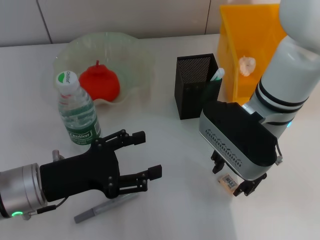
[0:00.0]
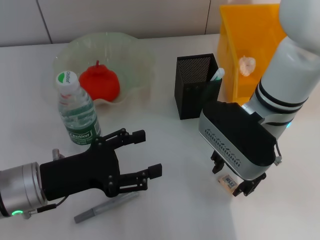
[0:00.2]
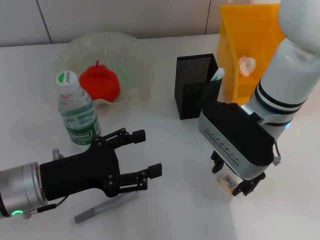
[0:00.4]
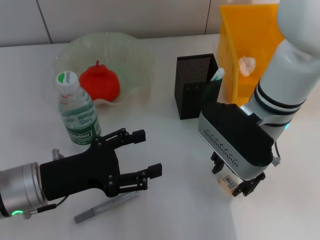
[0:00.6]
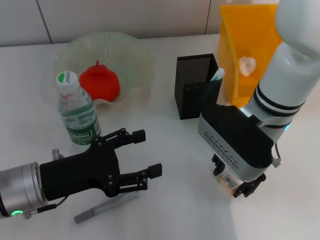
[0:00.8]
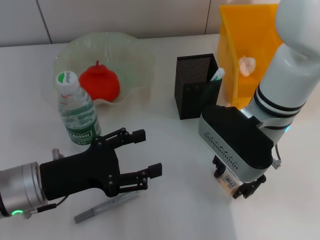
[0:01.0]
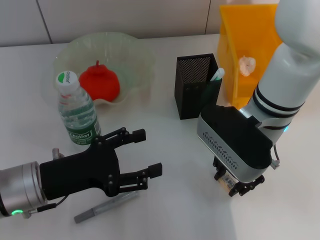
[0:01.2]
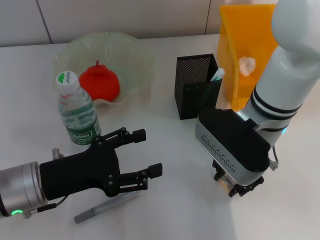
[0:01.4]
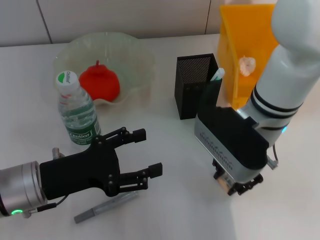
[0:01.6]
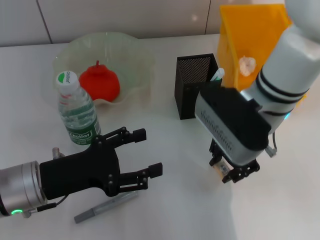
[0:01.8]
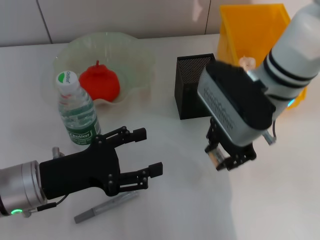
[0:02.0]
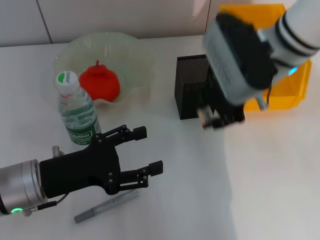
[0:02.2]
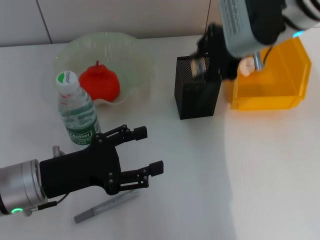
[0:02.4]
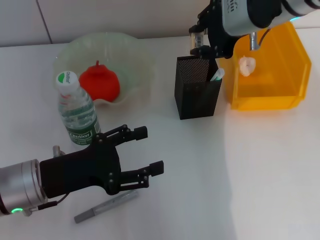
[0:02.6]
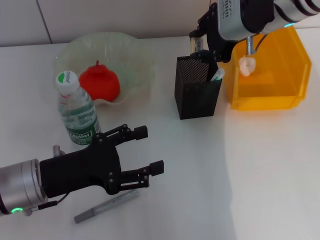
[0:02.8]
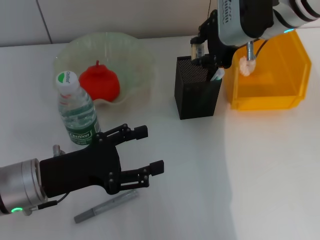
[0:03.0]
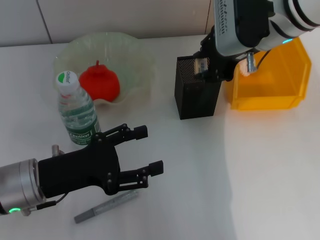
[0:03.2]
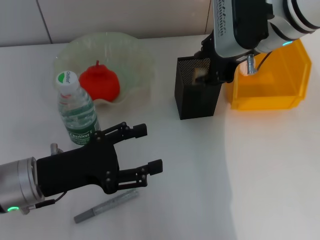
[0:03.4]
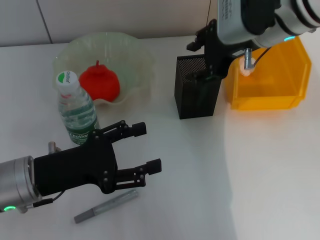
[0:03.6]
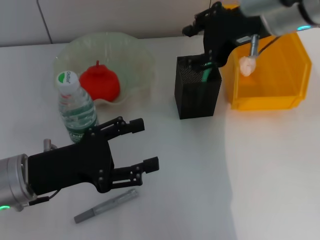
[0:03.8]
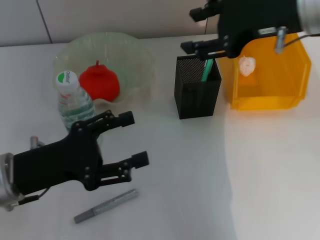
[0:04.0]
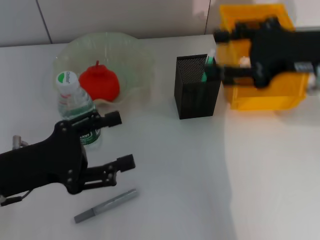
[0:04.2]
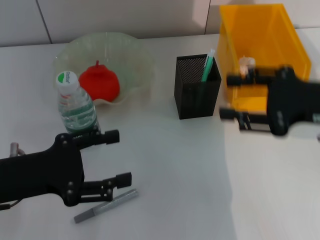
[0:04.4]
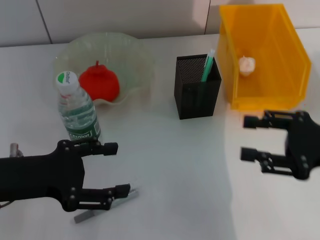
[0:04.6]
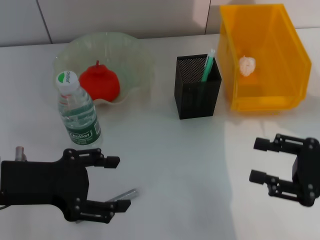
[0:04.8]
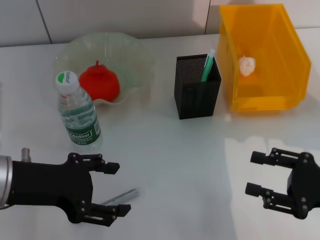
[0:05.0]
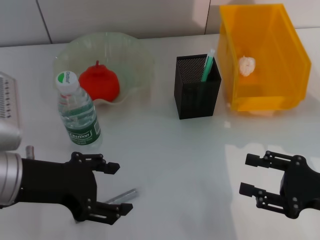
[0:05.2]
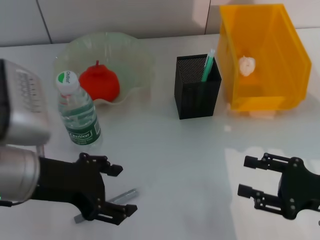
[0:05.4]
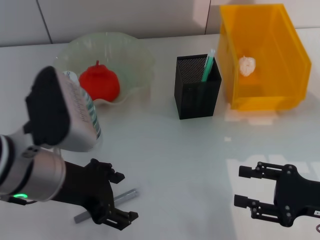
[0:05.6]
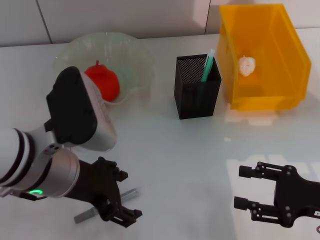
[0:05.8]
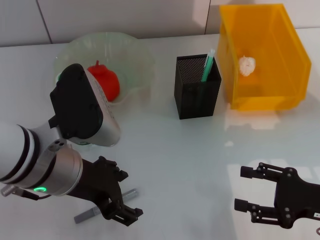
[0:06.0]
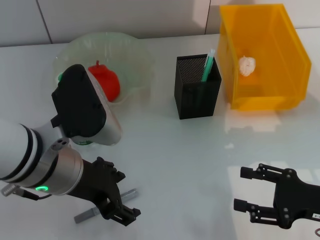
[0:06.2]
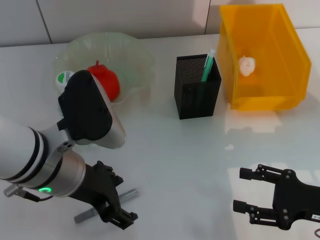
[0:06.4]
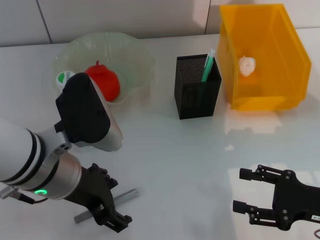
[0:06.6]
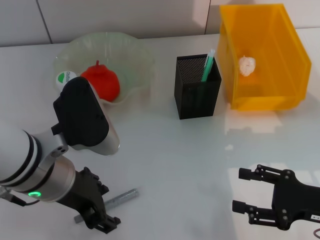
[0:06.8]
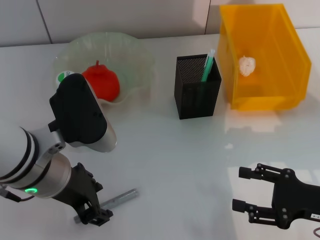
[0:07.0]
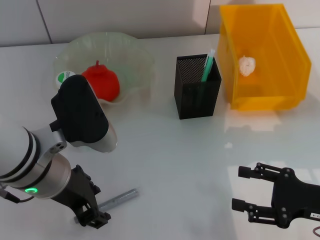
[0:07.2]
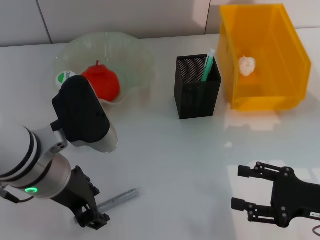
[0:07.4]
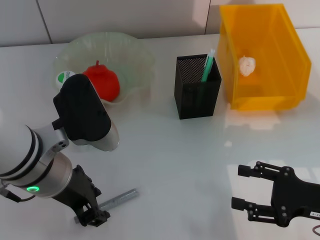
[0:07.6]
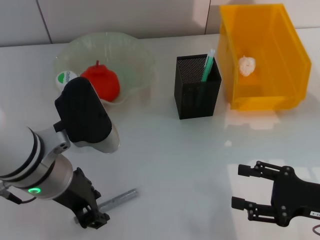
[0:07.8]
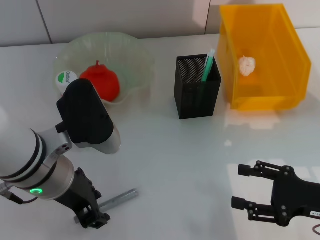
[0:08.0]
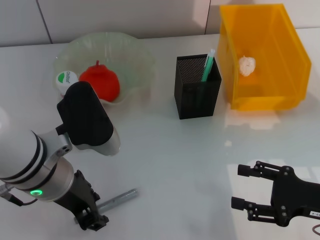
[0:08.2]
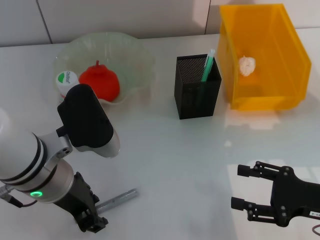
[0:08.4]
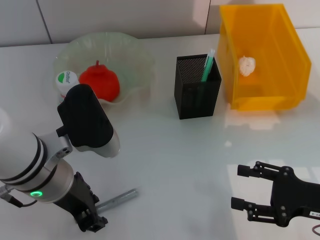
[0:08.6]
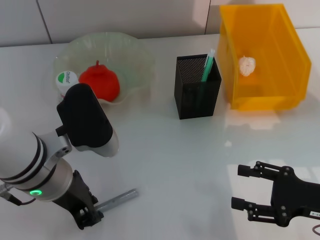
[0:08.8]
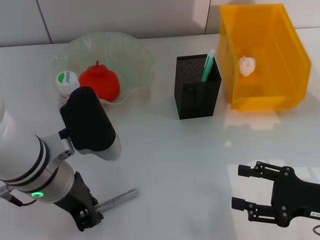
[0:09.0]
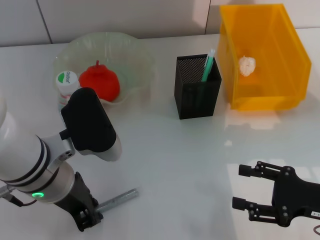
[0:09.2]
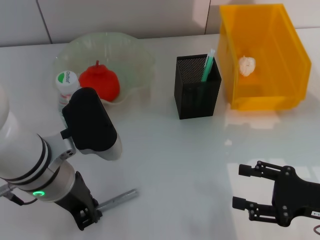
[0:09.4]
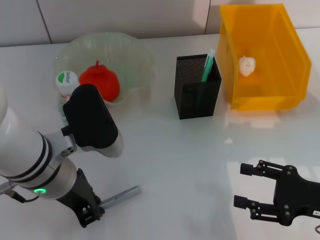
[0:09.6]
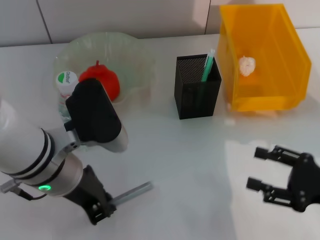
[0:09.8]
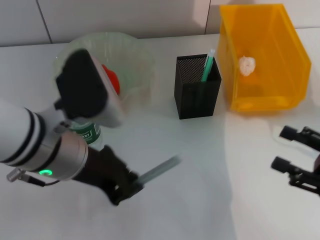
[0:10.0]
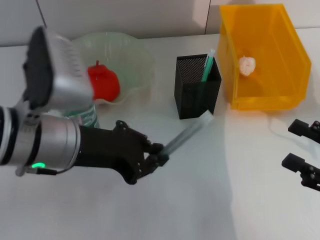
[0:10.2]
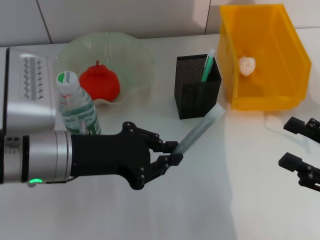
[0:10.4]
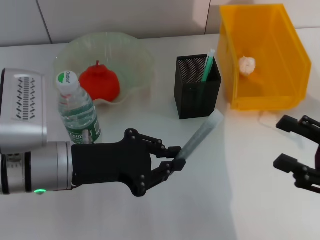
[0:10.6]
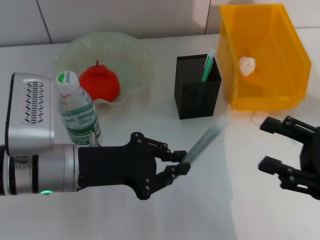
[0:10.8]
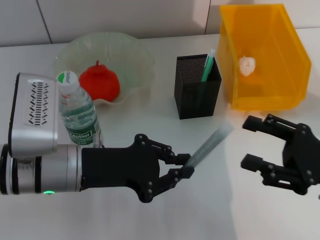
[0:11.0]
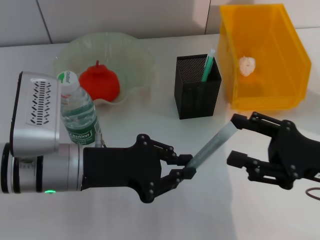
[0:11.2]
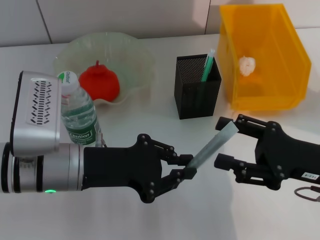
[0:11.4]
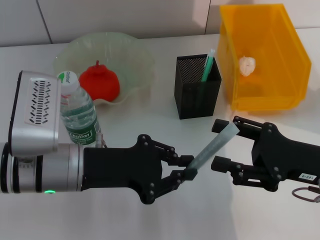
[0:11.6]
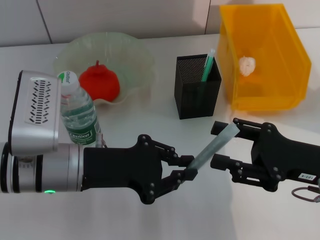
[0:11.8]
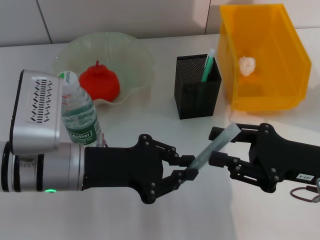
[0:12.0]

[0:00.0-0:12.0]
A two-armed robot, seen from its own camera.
Step, 0:01.4 to 0:03.4: Put the eraser into the pen holder with the right hand.
Step, 0:03.6 to 0:09.4: Grab the gray glue with the left hand.
0:00.0 to 0:01.6: Neither gripper changes place.
0:01.6 to 0:03.0: The right gripper heads upward and forward, covering some 10 cm.
0:03.0 to 0:04.4: The left gripper shifts by roughly 5 cm; the right gripper travels backward, to the right and downward by roughly 20 cm.
0:04.4 to 0:06.0: The right gripper goes some 15 cm downward and backward; the left gripper is displaced to the right by some 10 cm.
0:06.0 to 0:07.6: The left gripper closes.
0:07.6 to 0:09.0: The left gripper closes.
0:09.0 to 0:10.4: The right gripper moves some 5 cm.
0:10.4 to 0:12.0: The right gripper goes some 10 cm to the left and forward.

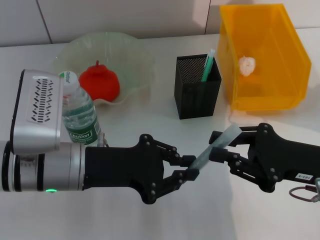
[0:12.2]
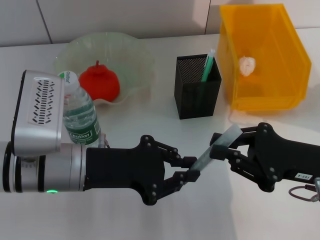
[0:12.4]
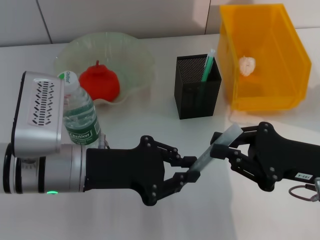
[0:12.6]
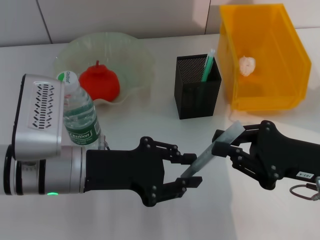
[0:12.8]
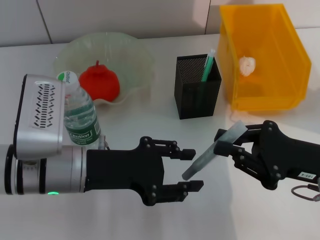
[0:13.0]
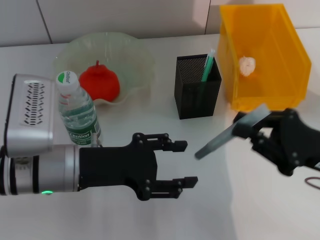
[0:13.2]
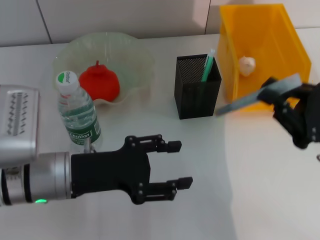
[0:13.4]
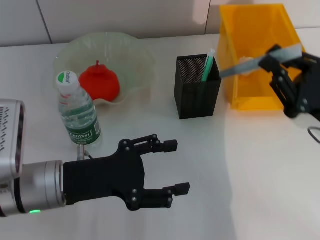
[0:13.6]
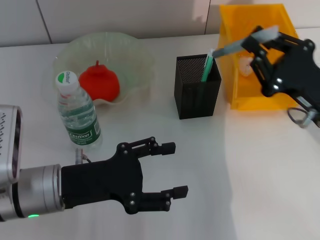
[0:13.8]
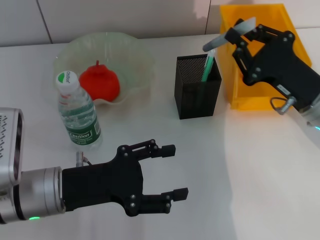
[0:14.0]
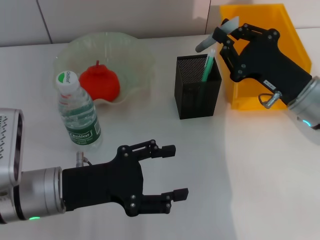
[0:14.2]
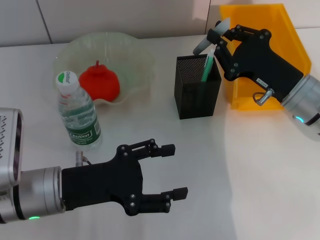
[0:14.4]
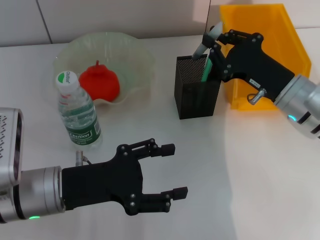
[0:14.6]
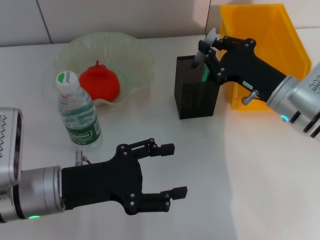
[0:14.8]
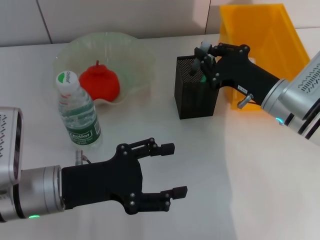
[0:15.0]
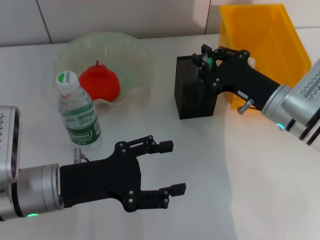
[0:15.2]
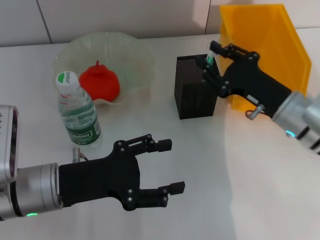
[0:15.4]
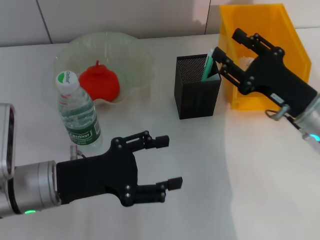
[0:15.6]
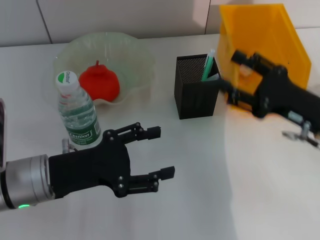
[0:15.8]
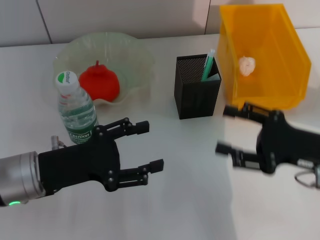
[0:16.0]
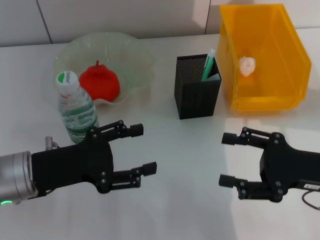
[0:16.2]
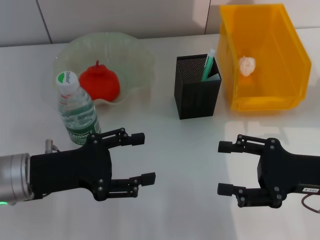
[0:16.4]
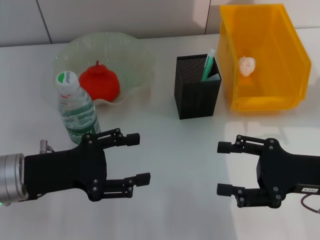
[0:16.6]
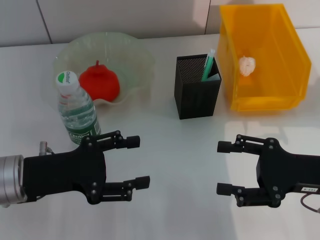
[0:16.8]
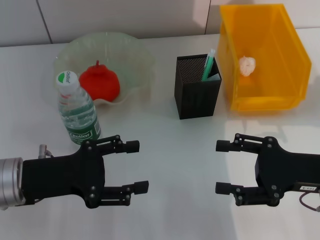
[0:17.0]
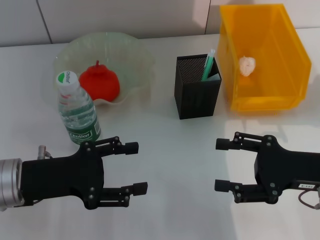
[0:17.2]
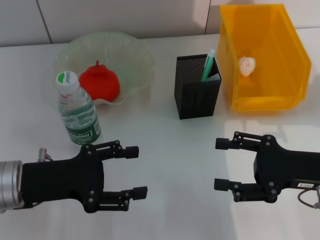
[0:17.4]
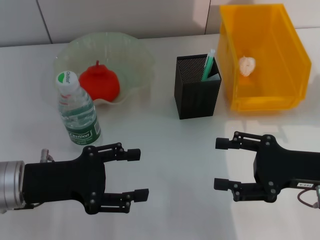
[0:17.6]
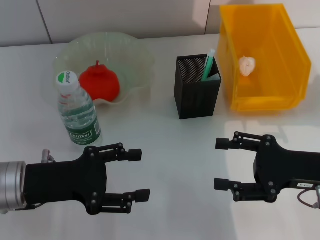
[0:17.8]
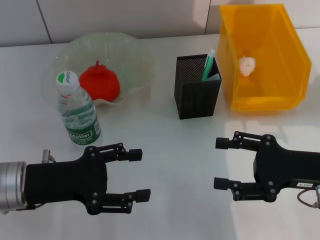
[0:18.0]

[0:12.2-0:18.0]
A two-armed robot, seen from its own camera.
Step, 0:13.0 to 0:15.6: Place the gray glue into the pen holder with the left hand.
0:12.2 to 0:13.6: The right gripper closes up; the left gripper opens up.
0:13.6 to 0:15.0: The right gripper shifts about 10 cm forward and to the left.
0:15.0 to 0:16.6: The right gripper moves backward and to the right, roughly 15 cm, and opens.
0:16.6 to 0:18.0: The grippers make only small movements.
